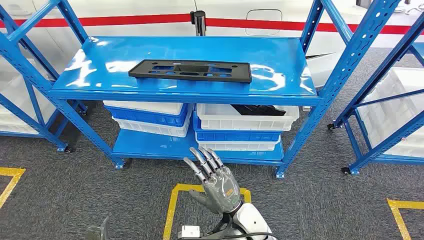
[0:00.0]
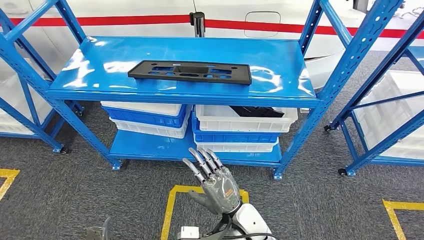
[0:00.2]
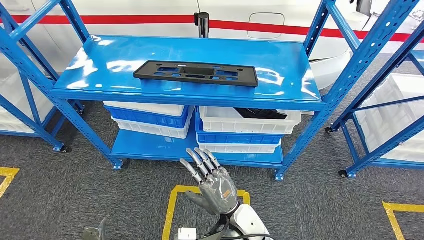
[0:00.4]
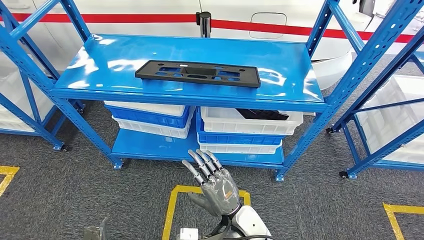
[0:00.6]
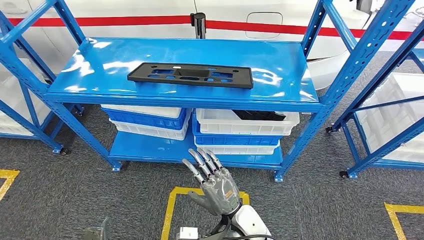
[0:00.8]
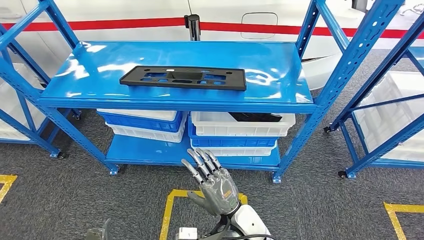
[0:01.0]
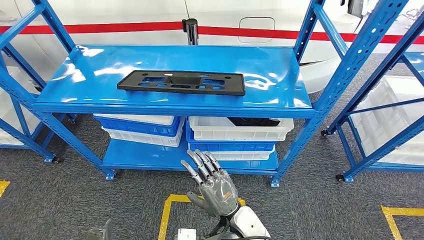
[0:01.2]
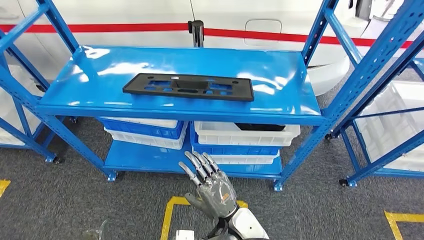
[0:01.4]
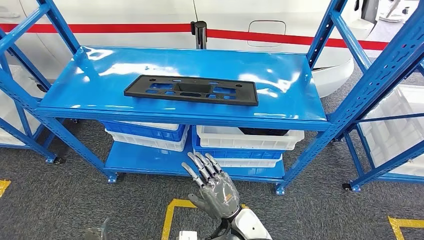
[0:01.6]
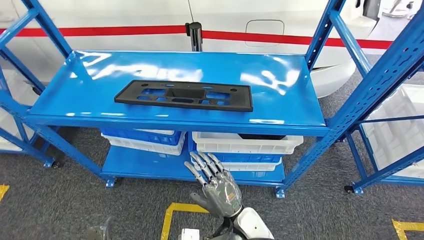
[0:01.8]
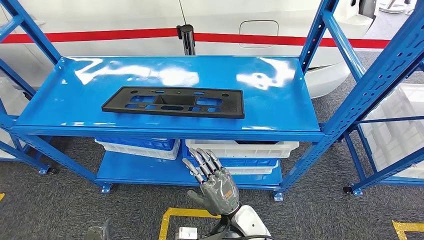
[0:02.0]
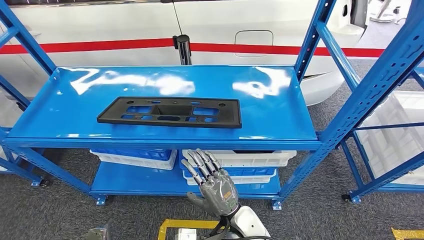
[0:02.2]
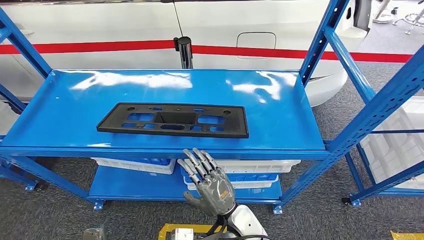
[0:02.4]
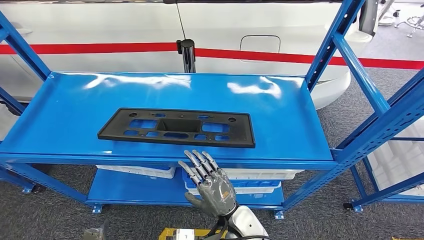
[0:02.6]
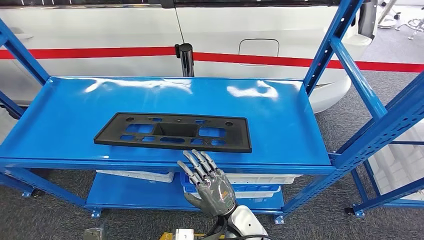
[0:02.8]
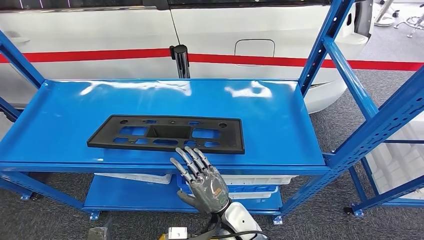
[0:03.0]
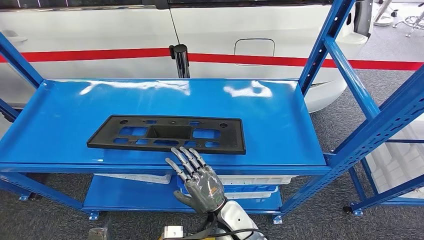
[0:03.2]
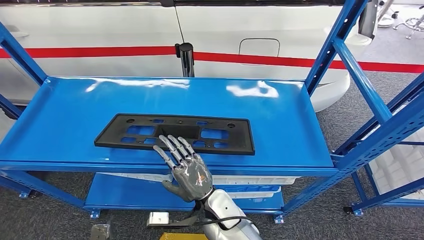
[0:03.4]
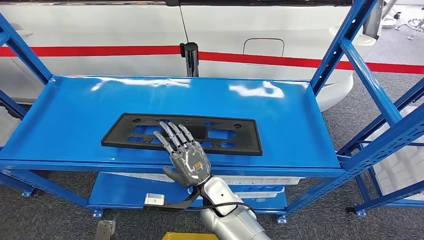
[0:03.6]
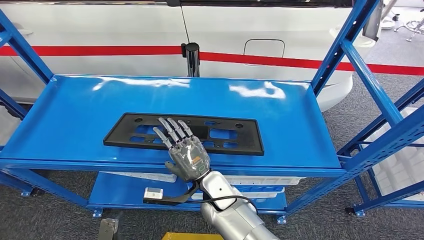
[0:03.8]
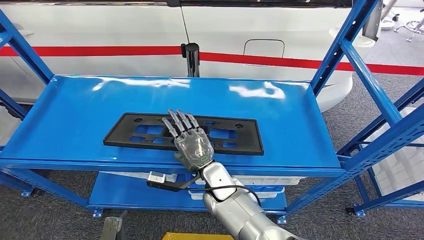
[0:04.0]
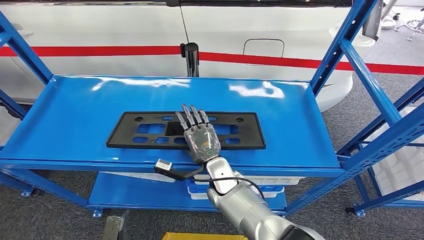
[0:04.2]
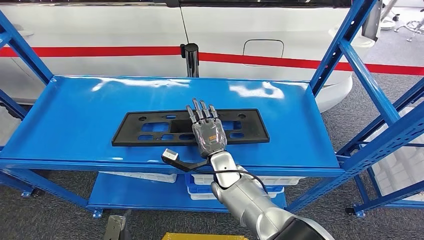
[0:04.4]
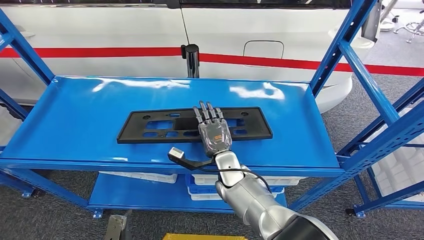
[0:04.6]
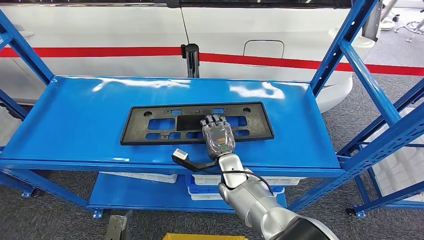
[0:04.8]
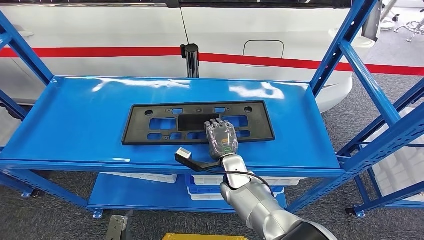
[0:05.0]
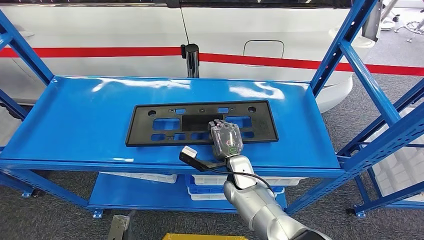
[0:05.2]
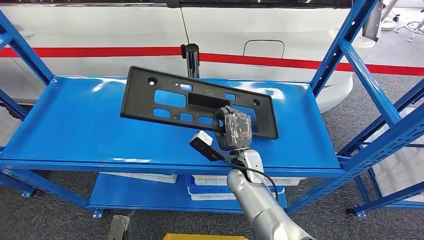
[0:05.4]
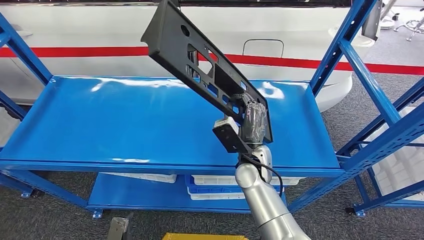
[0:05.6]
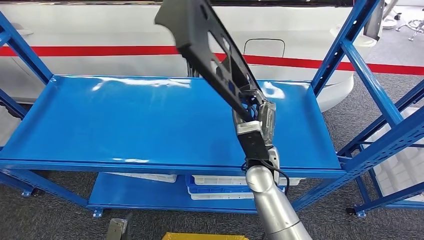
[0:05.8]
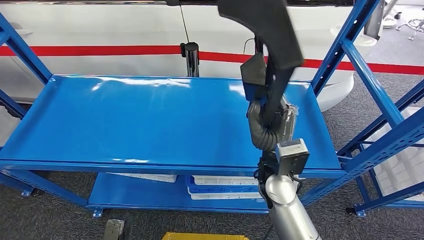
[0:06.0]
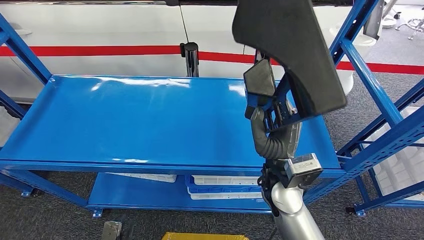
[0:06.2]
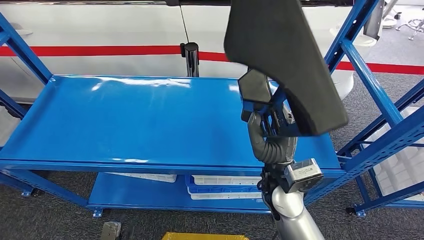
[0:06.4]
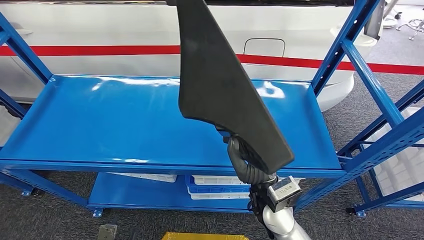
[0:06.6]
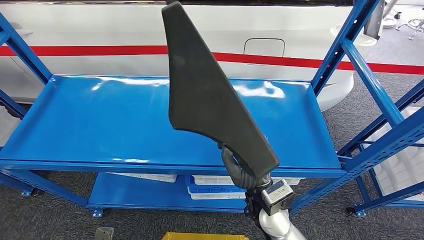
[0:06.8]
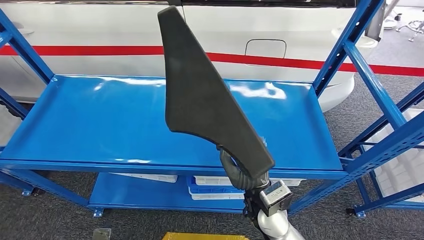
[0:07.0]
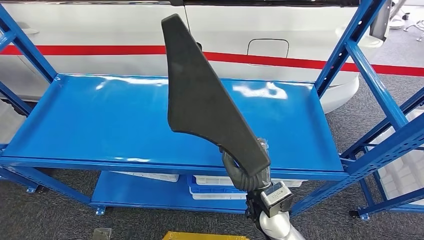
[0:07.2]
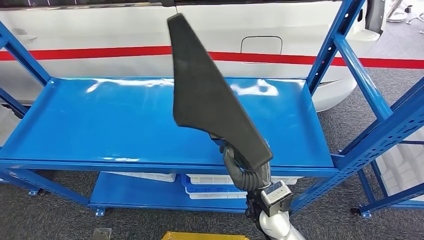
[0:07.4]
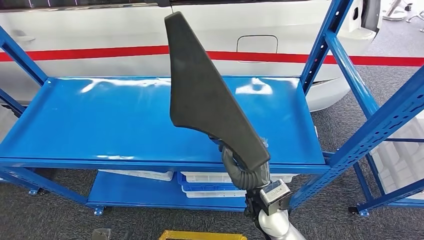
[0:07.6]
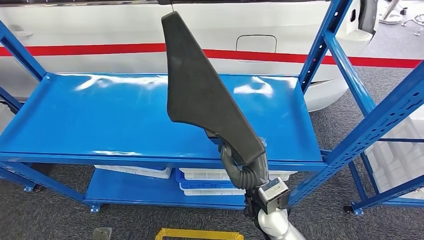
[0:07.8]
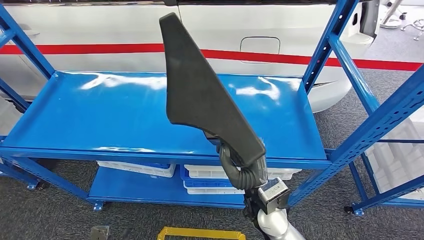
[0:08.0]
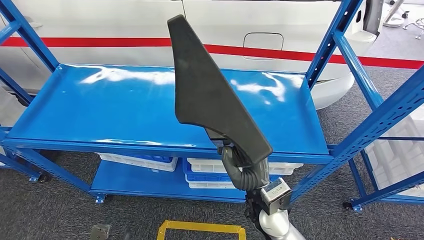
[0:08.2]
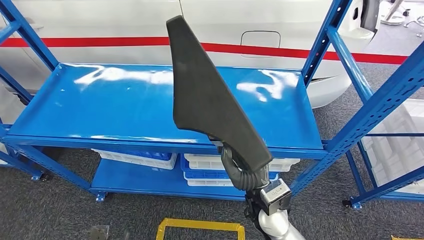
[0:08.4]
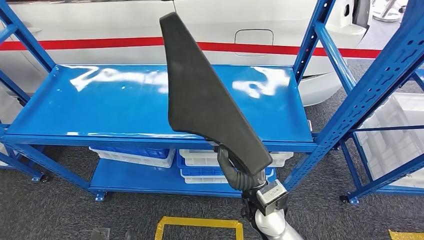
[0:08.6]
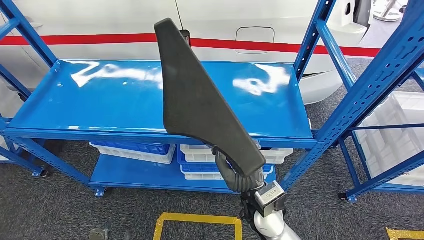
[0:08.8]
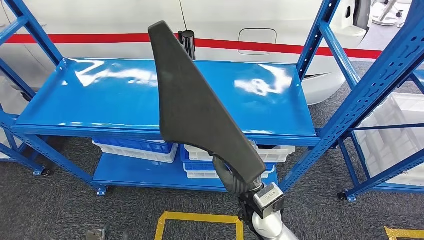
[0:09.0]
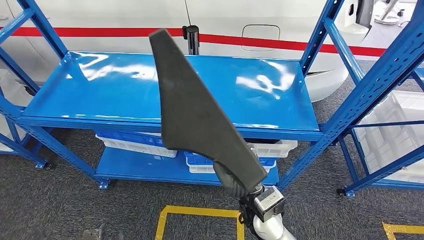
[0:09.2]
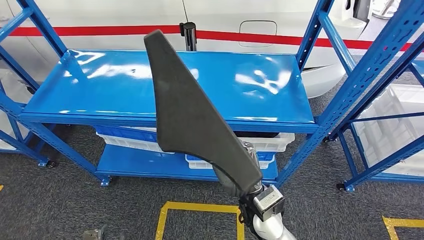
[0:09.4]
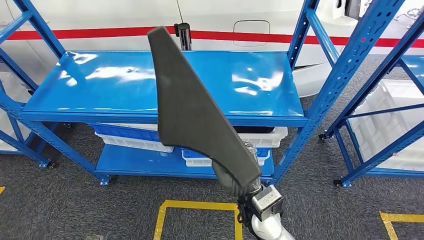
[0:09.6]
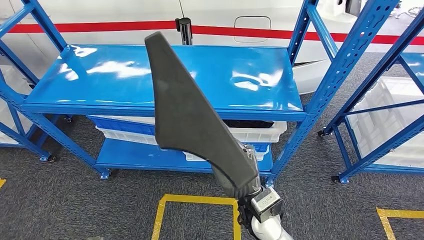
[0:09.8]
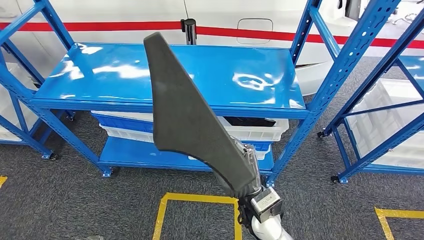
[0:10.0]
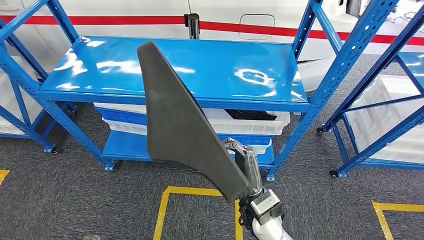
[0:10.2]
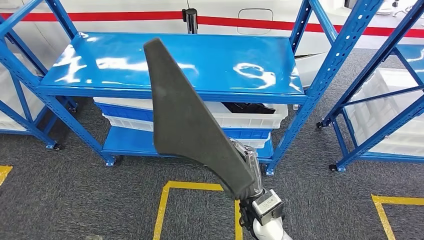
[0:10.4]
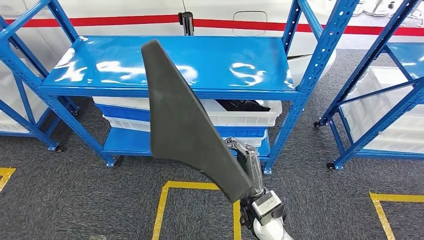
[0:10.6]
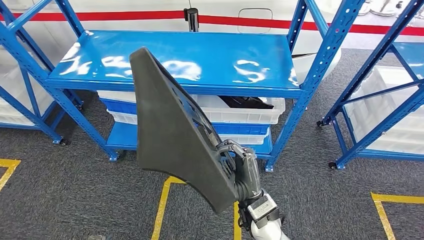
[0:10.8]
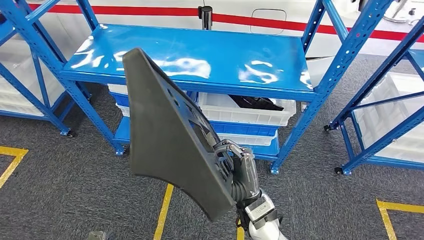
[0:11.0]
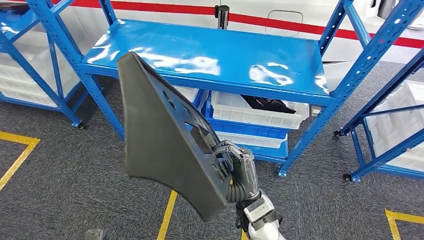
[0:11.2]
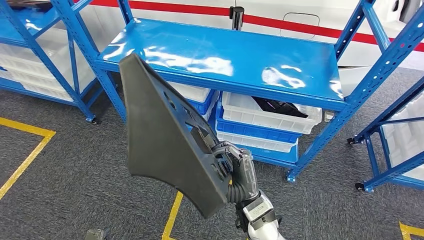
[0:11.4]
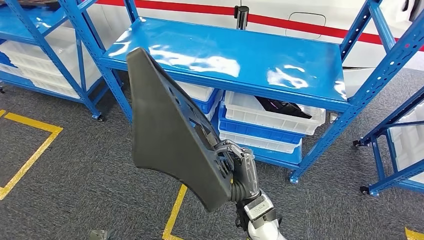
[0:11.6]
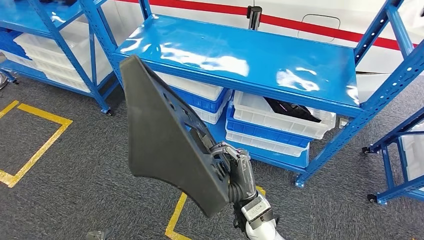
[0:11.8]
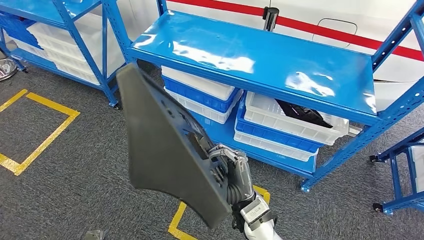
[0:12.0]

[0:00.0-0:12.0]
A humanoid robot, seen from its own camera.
Step, 0:00.0 to 0:11.0: Pick up the large material from the shelf.

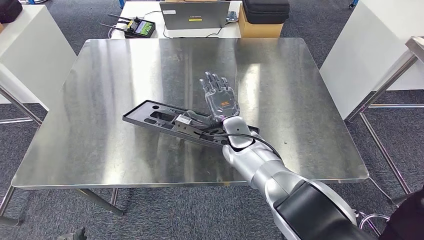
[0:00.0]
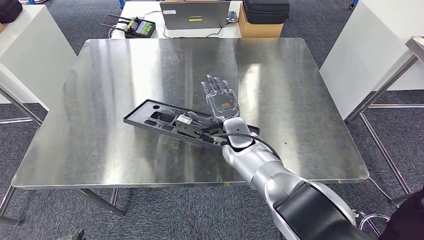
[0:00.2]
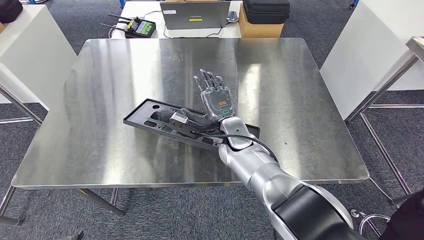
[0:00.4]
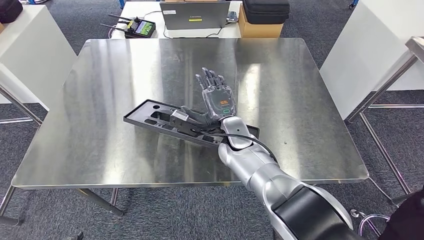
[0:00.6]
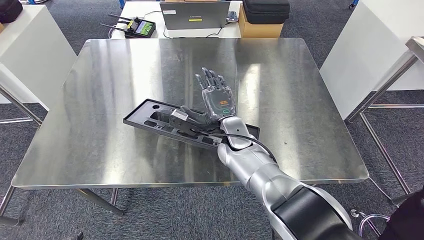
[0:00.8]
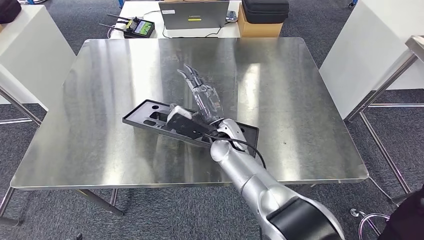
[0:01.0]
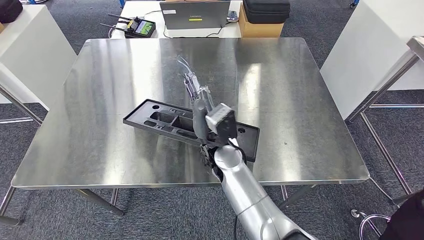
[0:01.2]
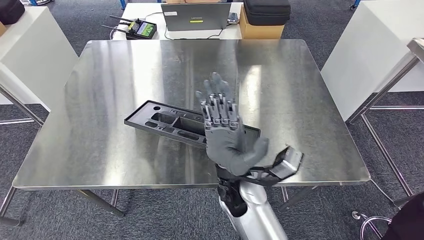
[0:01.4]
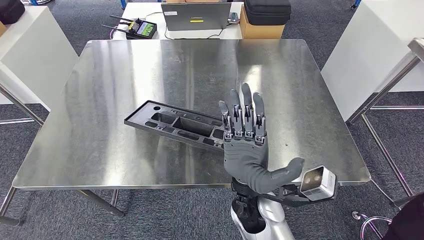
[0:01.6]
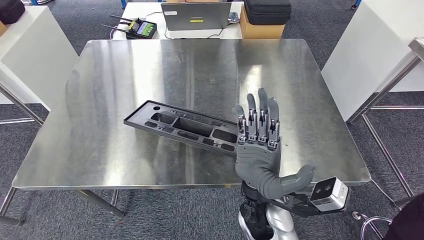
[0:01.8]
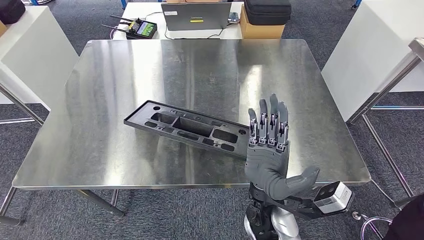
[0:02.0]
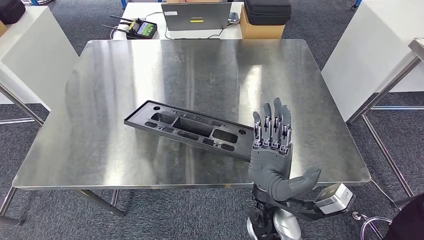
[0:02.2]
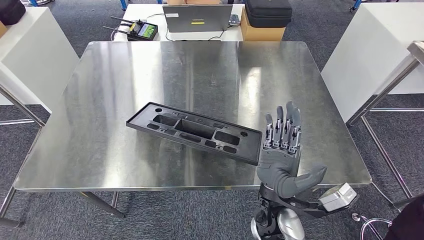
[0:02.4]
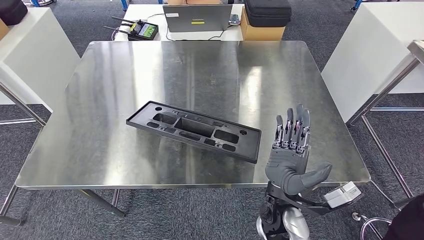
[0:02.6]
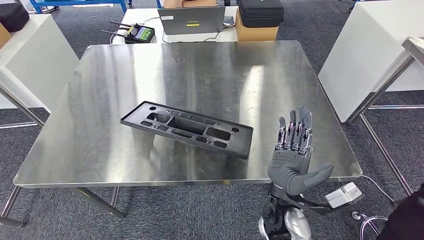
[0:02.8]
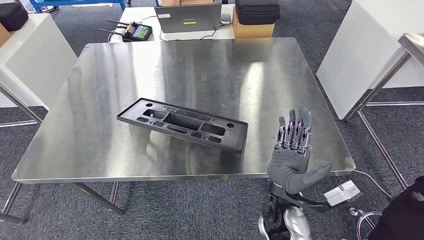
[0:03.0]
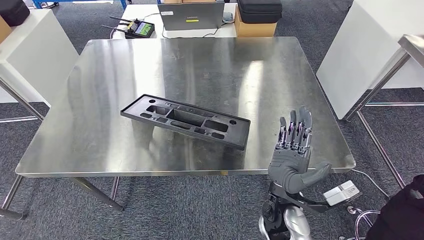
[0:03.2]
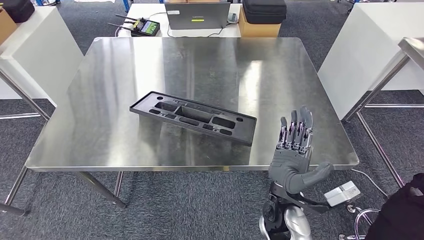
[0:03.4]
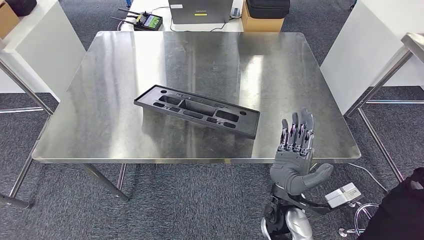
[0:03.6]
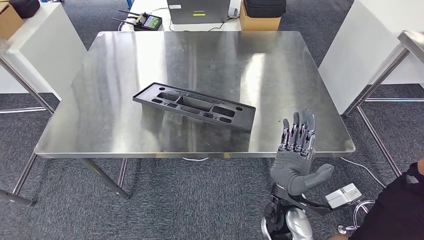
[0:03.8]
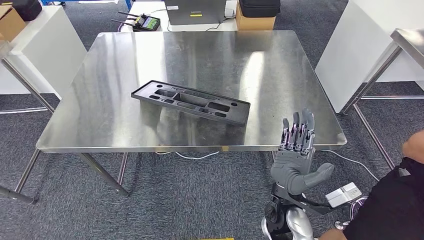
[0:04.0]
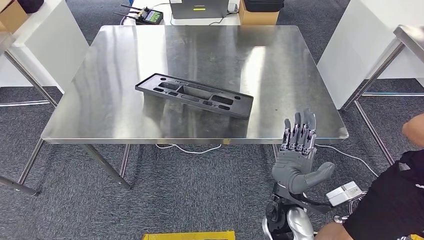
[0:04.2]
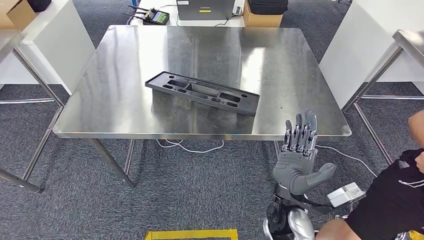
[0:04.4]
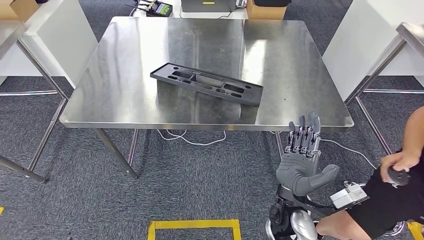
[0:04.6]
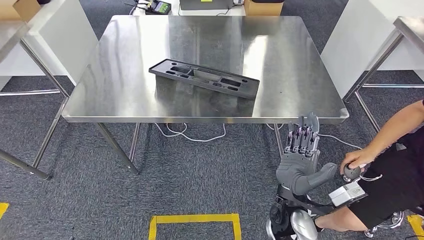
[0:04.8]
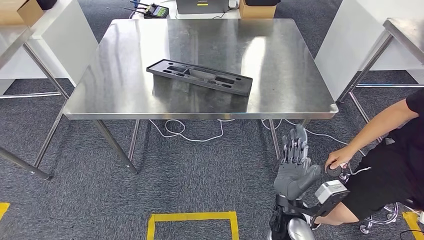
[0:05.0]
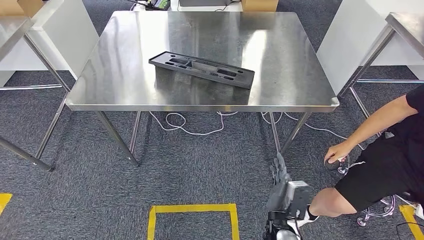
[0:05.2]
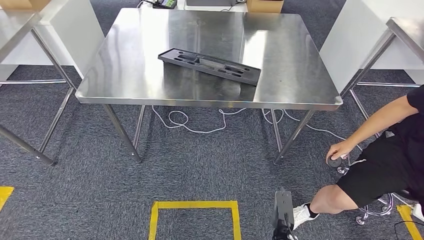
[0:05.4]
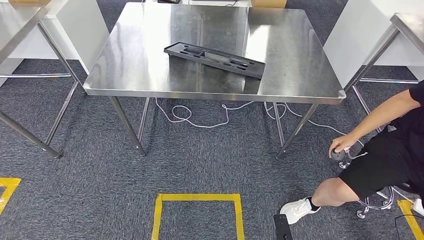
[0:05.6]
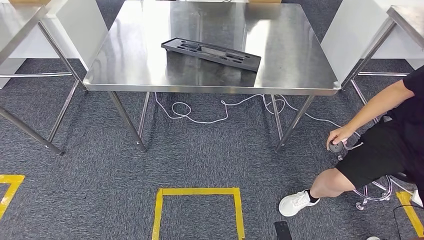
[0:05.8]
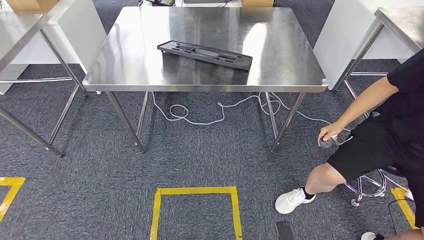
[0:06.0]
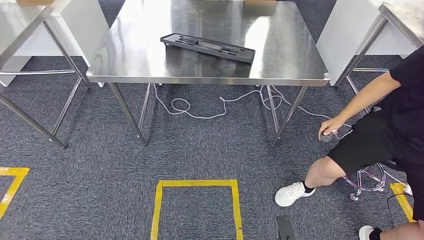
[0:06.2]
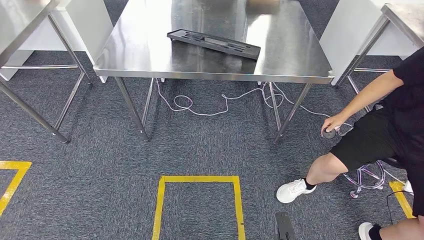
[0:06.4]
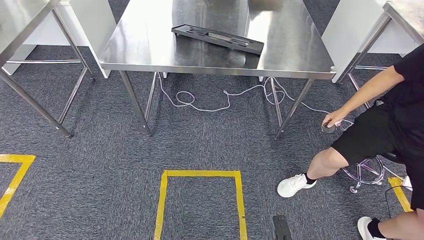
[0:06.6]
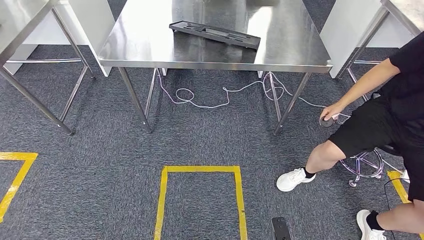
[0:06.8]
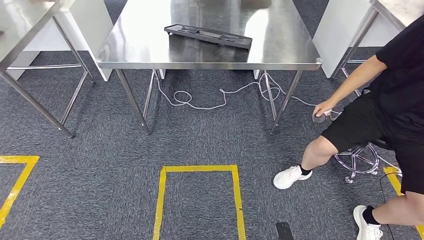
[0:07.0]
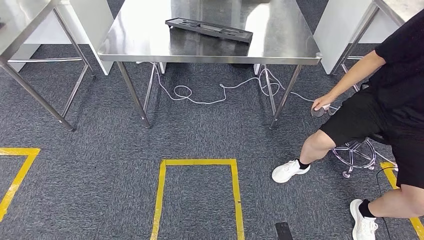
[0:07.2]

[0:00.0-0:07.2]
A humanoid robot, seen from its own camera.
Step, 0:00.0 to 0:06.6: Insert the large material into the corresponding slot on the workbench.
0:00.0 to 0:01.4: The right hand moves backward, about 15 cm.
